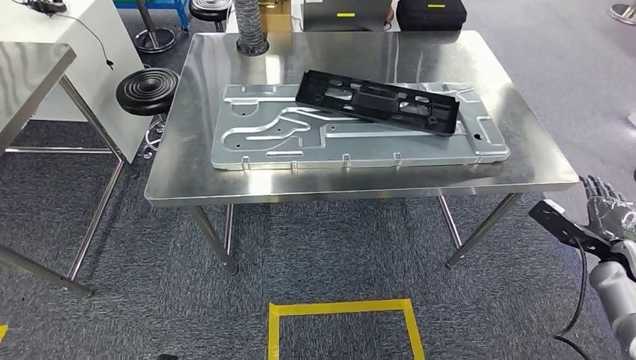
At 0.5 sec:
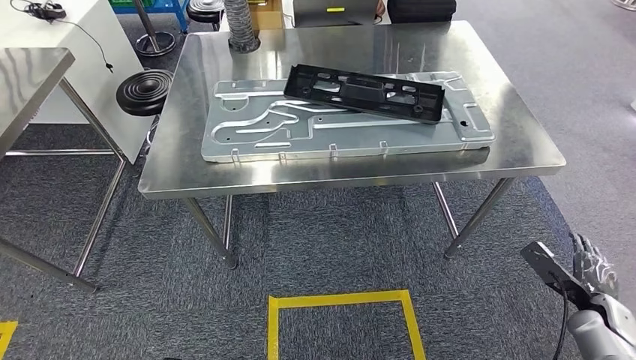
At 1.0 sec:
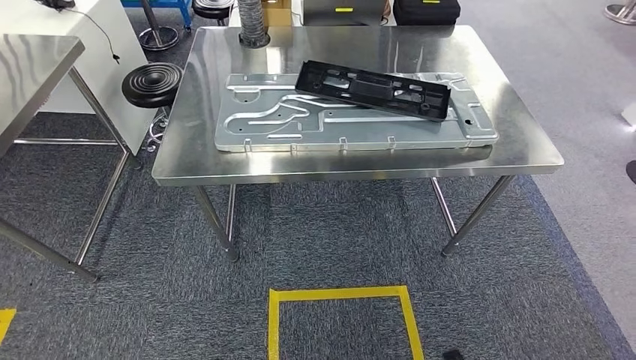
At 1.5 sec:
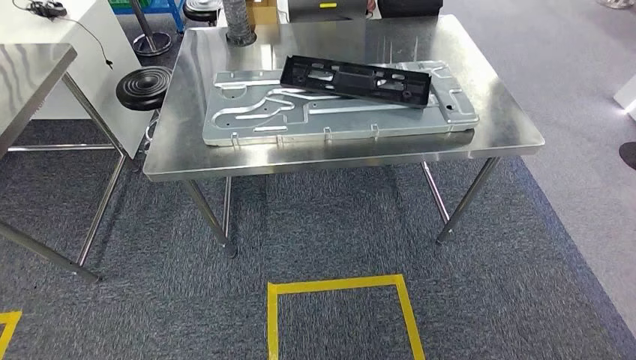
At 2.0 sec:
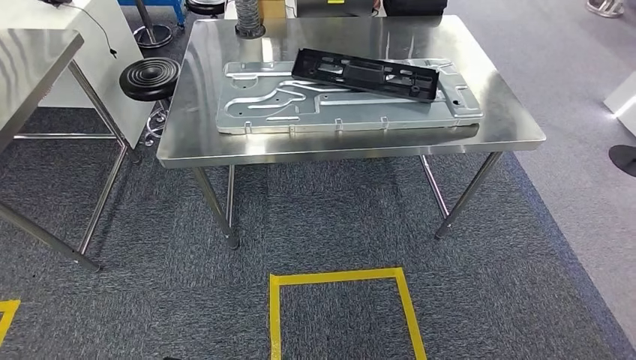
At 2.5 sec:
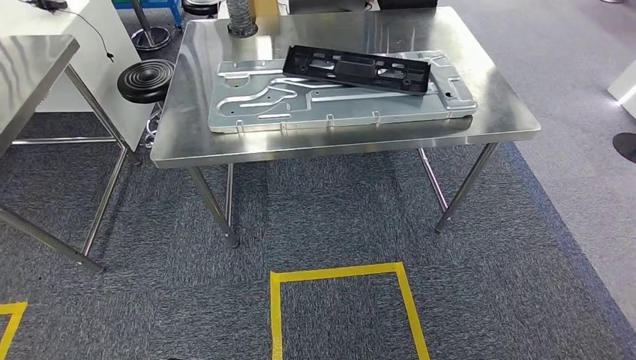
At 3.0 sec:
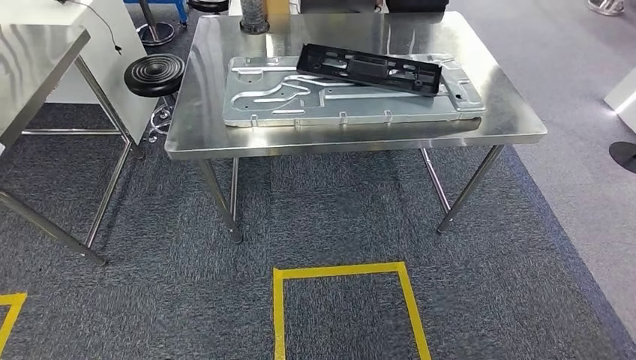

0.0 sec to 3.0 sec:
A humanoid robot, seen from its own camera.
Step, 0.0 sec to 3.0 sec: Move to the initial position of the shelf.
